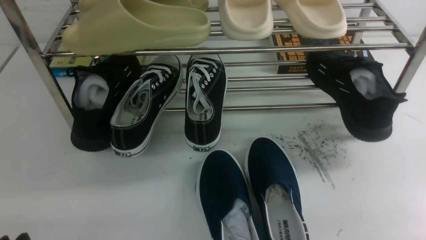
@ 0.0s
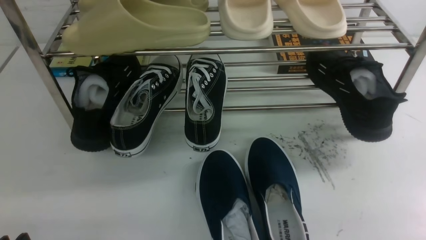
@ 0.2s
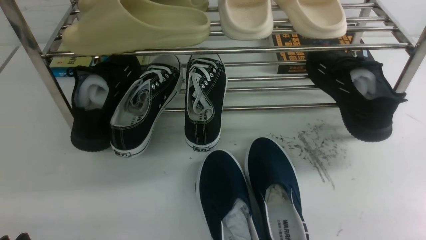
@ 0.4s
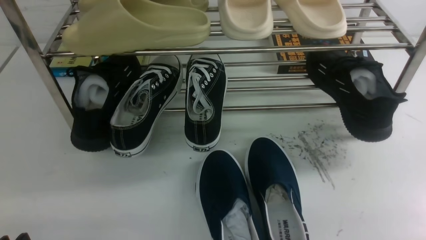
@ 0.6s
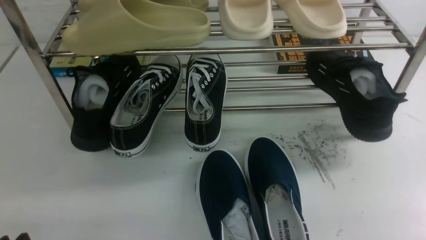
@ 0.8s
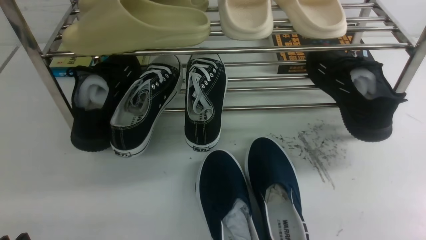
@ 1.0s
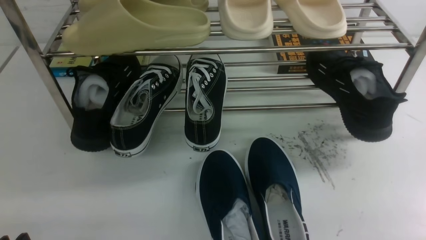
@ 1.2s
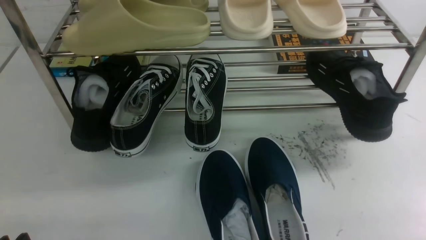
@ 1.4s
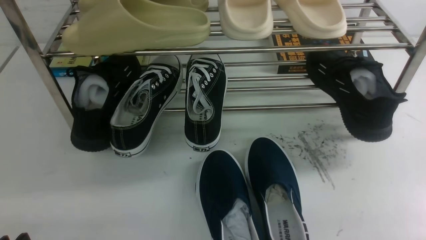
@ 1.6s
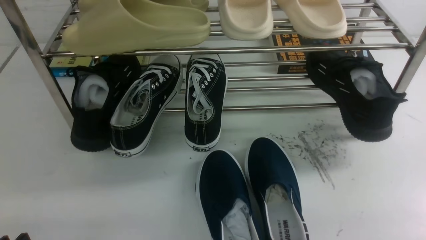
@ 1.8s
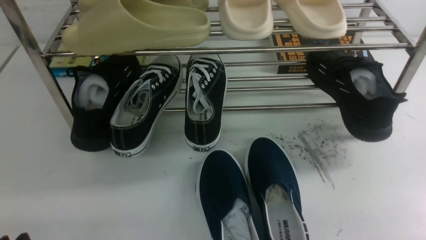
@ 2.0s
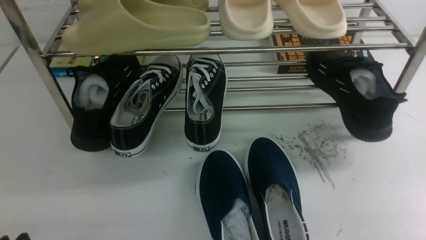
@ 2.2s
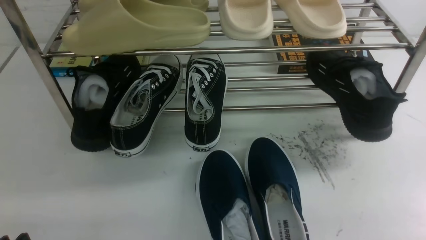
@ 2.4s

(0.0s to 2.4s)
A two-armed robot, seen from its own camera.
0.0s - 2.4s: Both grippers stay about where they are.

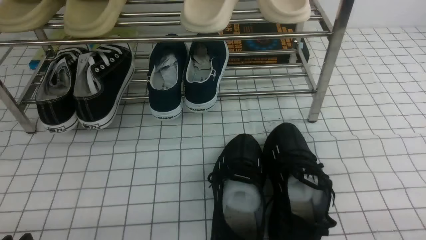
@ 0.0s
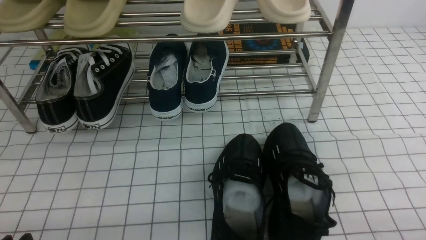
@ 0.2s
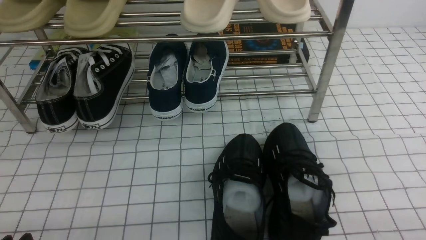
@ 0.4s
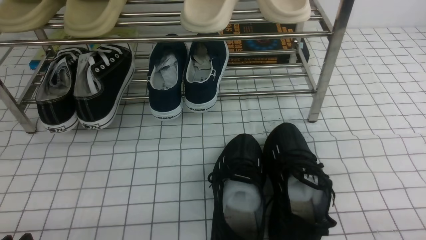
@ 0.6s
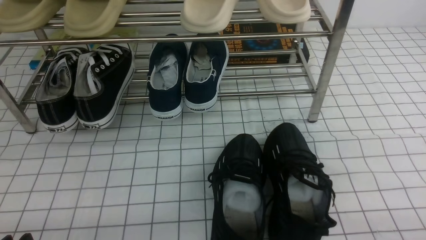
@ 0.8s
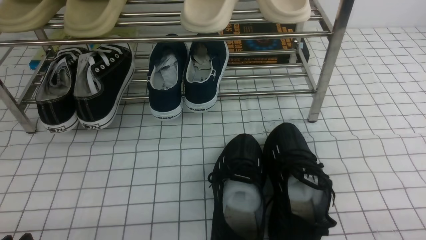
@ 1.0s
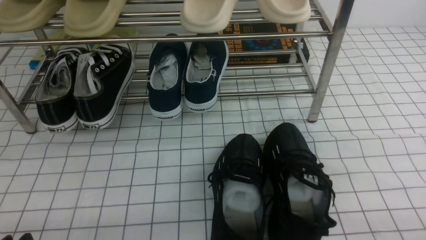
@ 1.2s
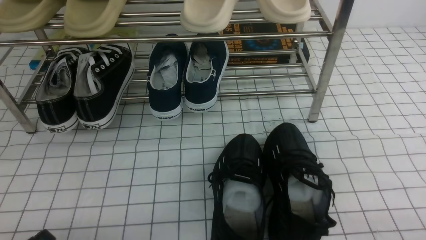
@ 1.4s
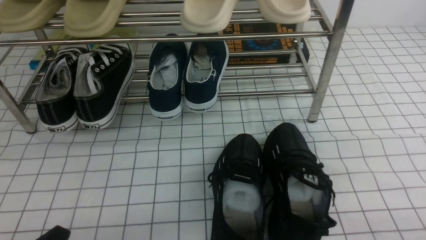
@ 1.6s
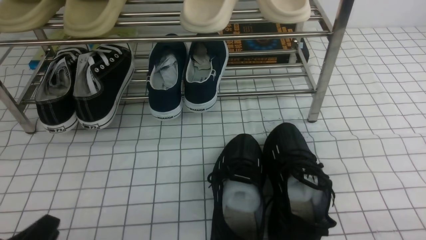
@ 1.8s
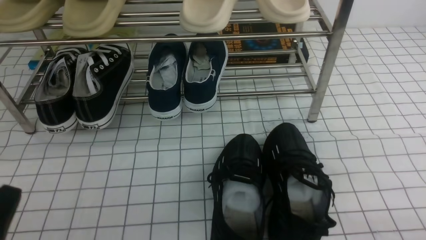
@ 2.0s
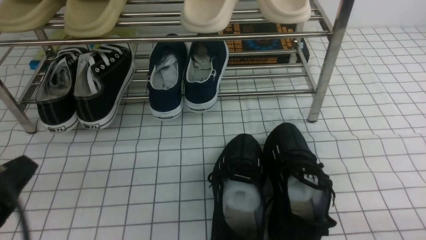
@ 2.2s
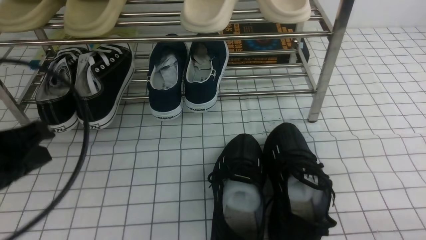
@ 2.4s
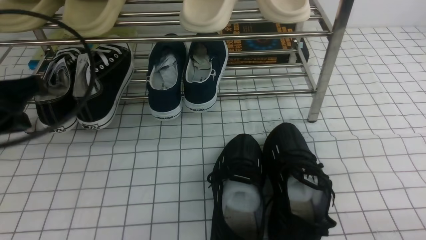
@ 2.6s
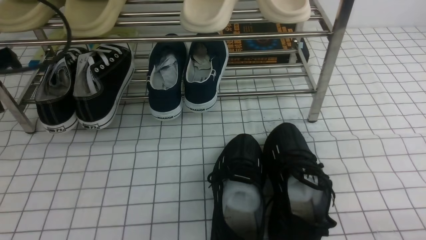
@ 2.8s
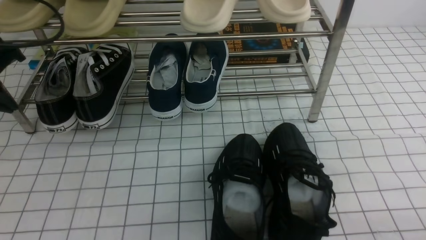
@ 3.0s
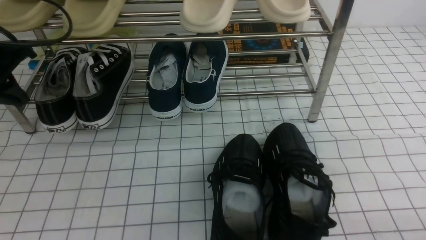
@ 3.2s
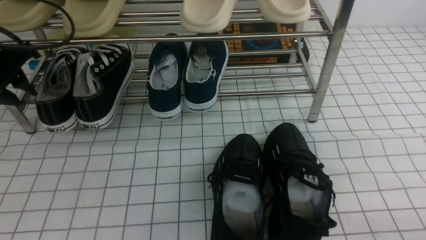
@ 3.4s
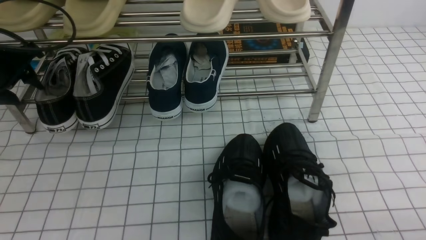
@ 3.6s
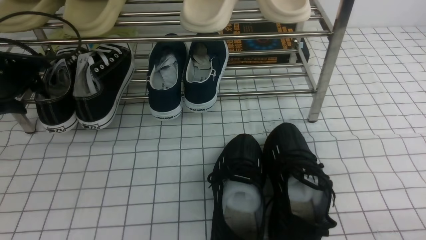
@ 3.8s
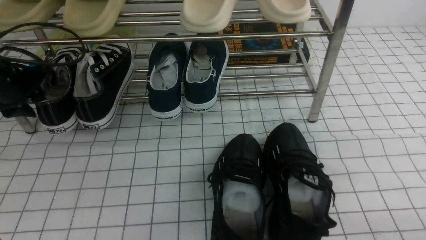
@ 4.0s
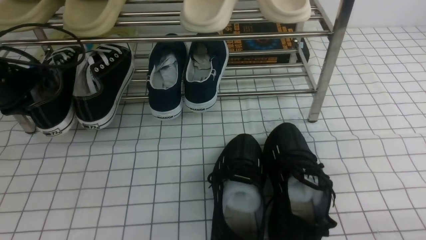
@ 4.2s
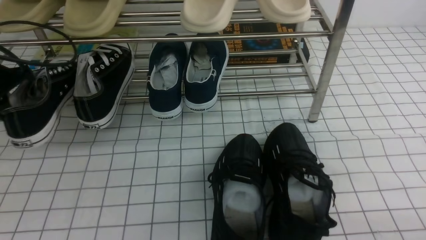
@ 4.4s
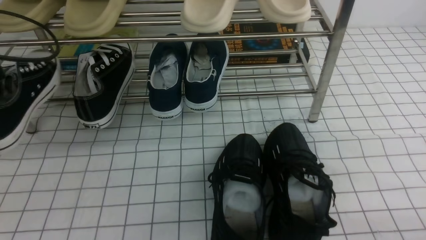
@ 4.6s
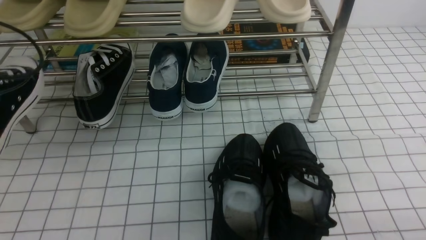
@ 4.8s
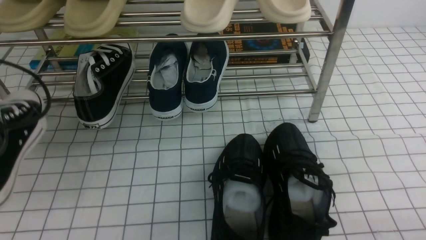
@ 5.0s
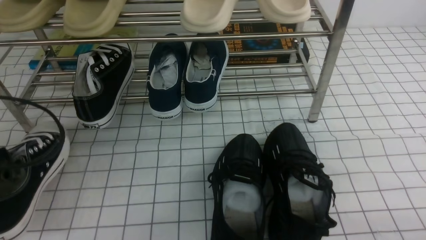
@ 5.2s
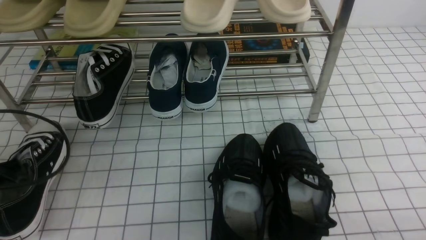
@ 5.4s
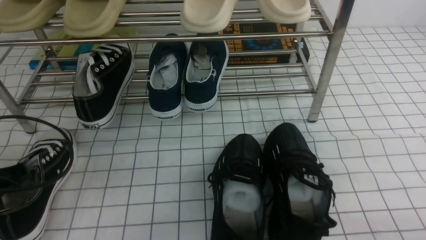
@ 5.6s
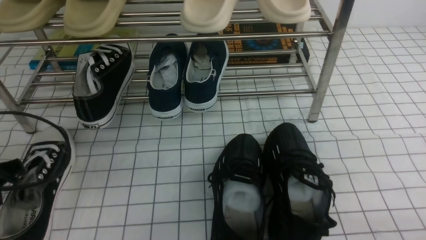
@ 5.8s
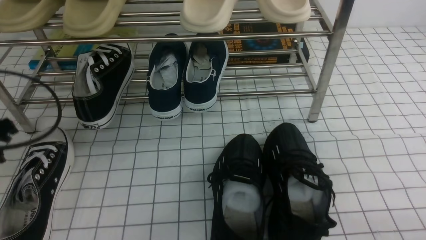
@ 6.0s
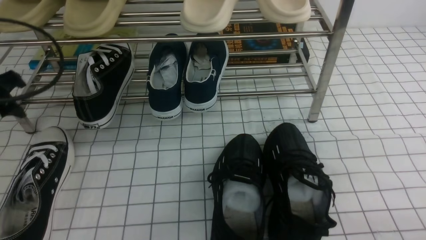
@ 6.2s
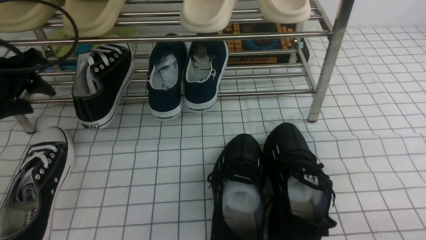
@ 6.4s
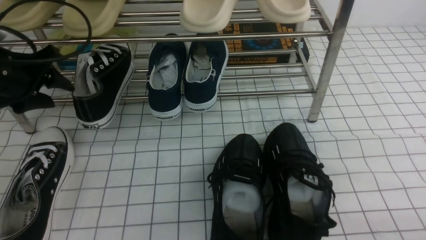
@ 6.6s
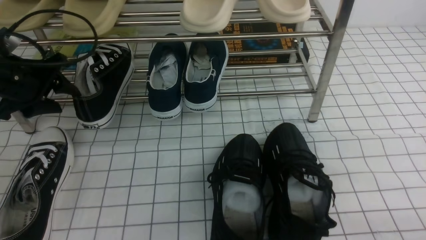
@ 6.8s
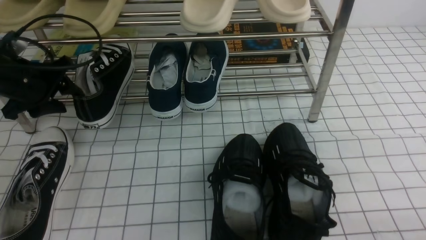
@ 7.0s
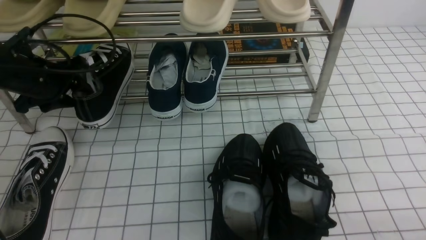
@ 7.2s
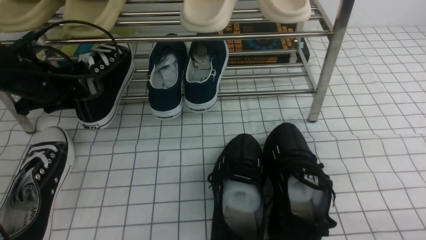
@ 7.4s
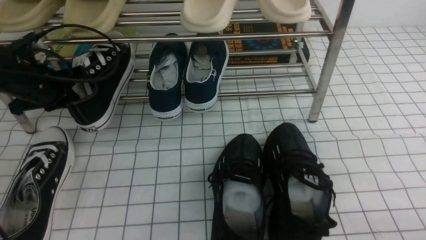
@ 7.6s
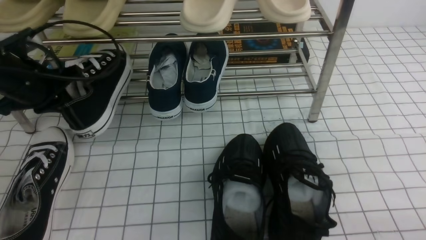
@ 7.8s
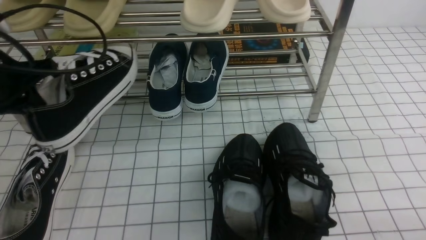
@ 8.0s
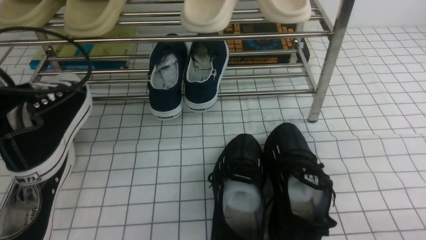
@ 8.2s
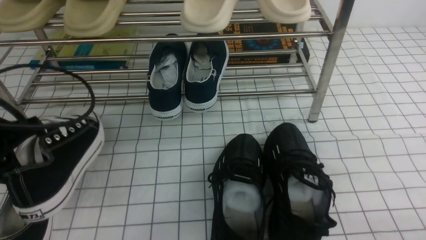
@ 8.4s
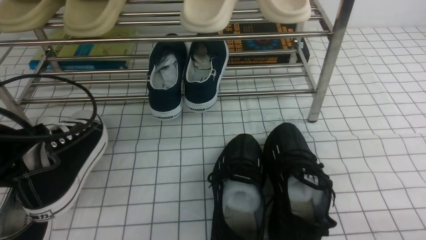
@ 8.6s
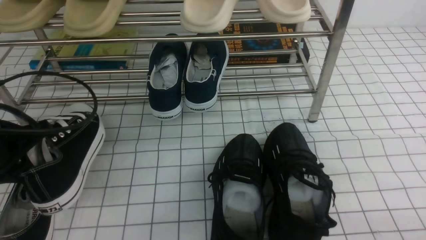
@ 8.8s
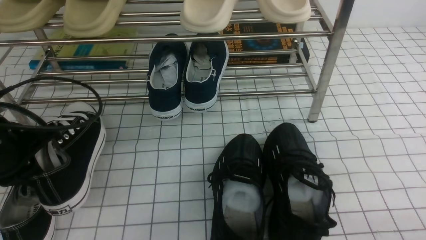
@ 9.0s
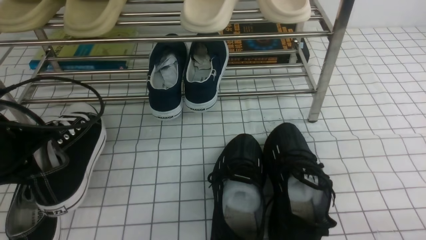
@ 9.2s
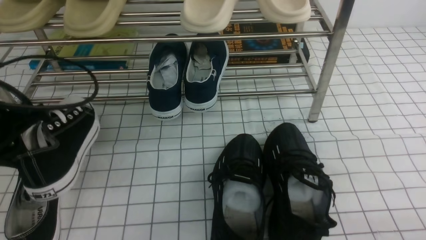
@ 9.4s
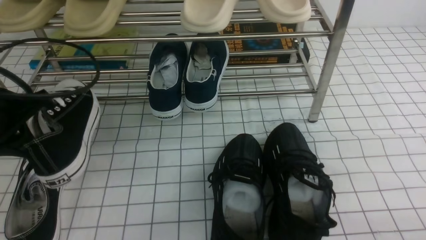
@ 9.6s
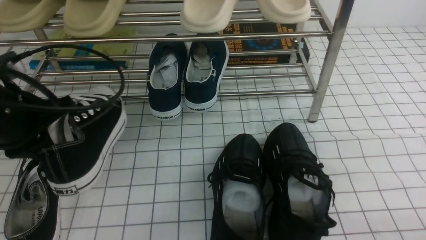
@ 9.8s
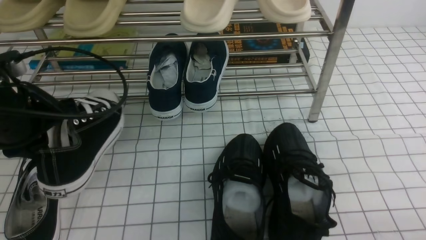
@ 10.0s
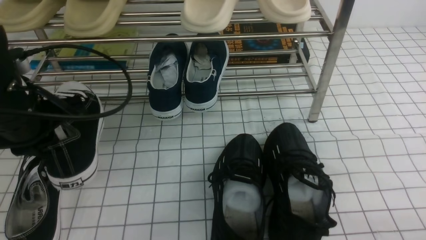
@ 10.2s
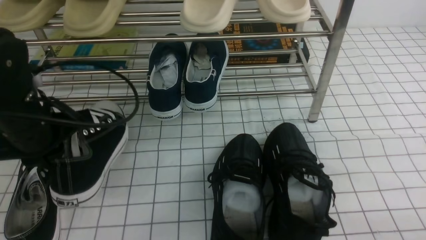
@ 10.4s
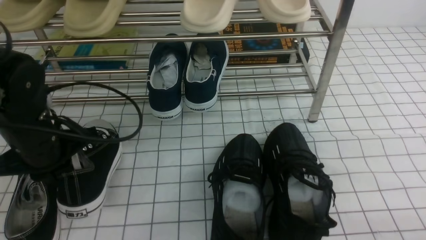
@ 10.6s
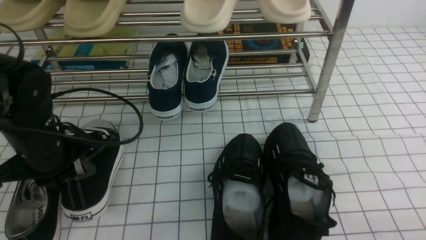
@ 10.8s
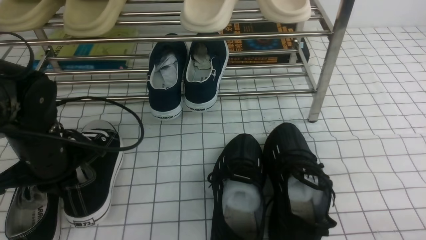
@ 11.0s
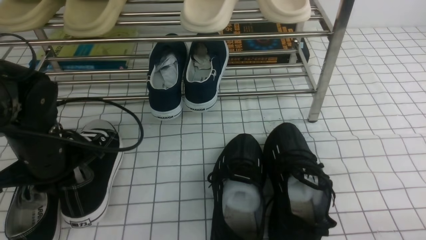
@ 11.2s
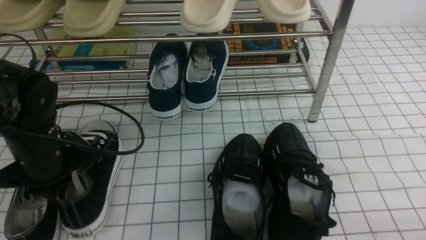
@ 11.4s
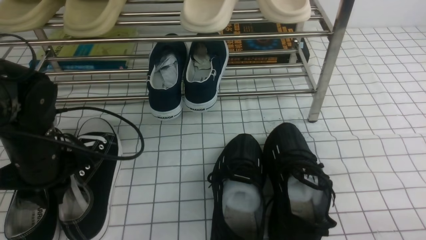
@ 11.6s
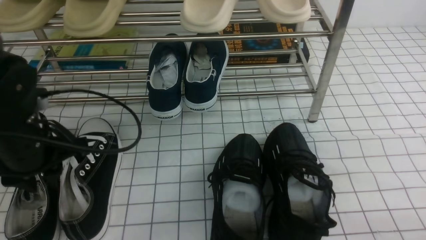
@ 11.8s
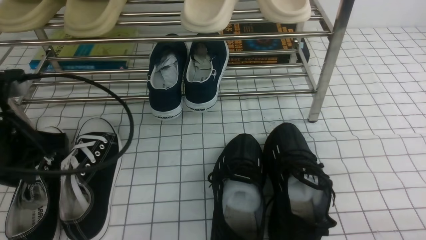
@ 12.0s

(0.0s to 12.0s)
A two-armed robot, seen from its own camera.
Step, 0.0s - 4.0s: use the left arm to clamp a shoe on the left side of the shoe rack.
Step, 4.2s - 5.8s: Use your left arm to remove the clamped shoe from the shoe rack and put it down.
Step, 6.2s - 7.4s: use the left arm to clamp a shoe on the left side of the shoe rack.
Step, 7.6s - 11.8s: Use your left arm to remove the clamped shoe from the shoe rack and put it down.
1.6s - 3.0s: The left gripper shifts approximately 30 cm forward and upward, and closes its fingers.
3.0s - 4.4s: The left gripper opens, then closes once more.
4.4s - 6.0s: The left gripper moves backward, approximately 10 cm, and opens.
6.0s - 7.6s: The left gripper shifts approximately 15 cm forward, and closes its fingers.
7.6s - 9.0s: The left gripper travels backward by roughly 10 cm.
9.0s - 10.4s: The left gripper heads to the right, covering some 5 cm.
10.4s - 12.0s: The left gripper is displaced backward by about 5 cm, and moves approximately 5 cm downward and comes back.

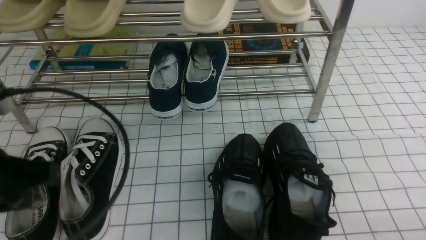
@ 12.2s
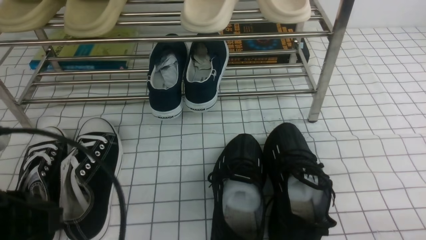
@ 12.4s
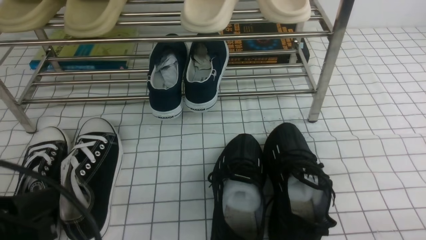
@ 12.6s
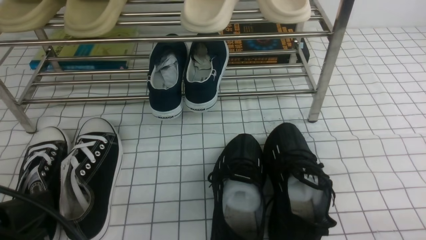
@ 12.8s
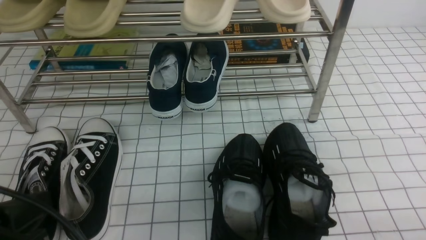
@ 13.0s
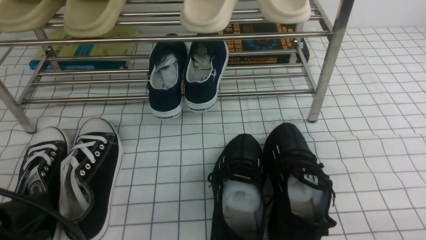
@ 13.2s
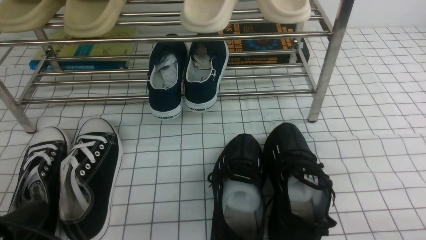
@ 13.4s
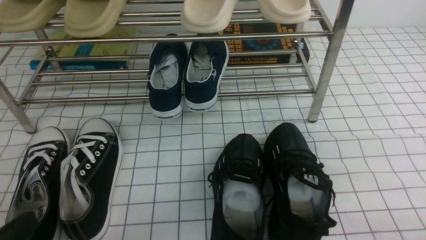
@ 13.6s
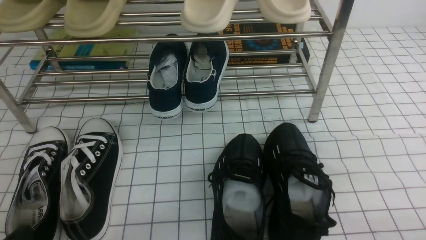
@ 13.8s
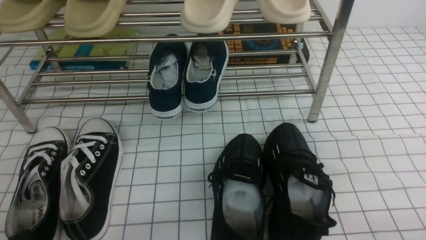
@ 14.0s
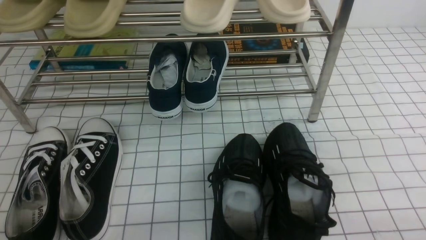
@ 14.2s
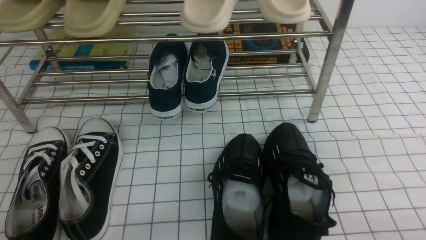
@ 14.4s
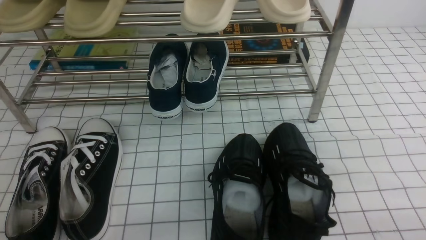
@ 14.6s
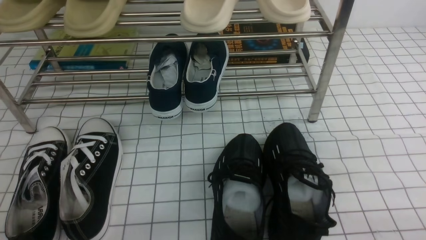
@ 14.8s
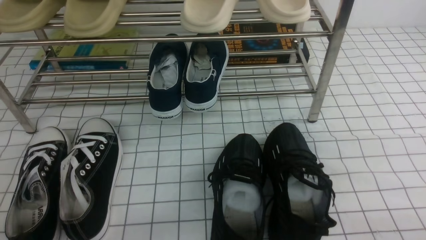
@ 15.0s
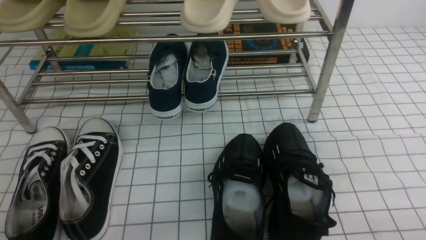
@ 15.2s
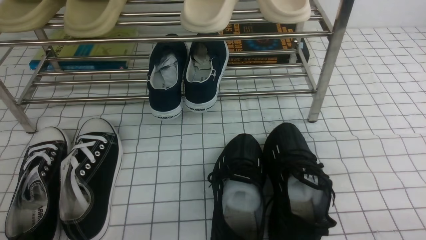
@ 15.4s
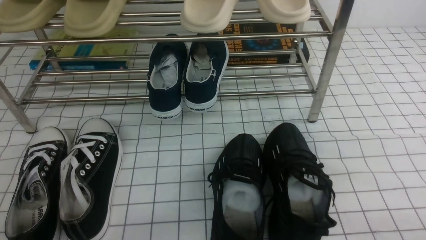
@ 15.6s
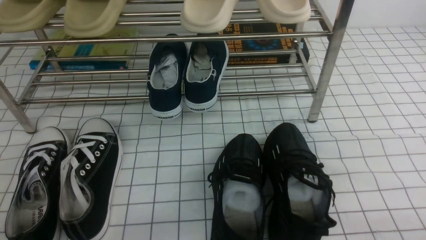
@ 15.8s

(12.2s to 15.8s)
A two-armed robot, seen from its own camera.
12.2s - 14.0s: The left gripper shifts roughly 15 cm downward and backward.
14.0s - 15.8s: Both grippers stay put.
